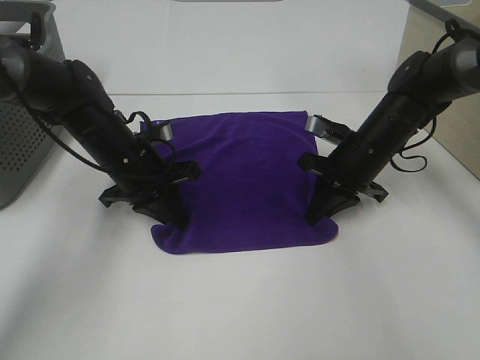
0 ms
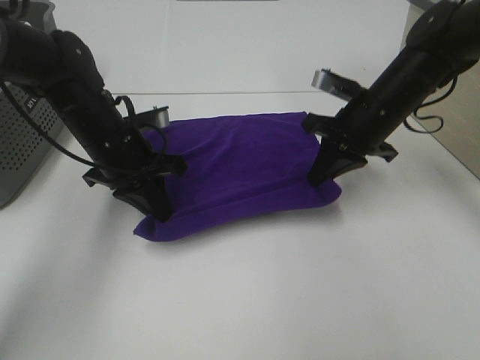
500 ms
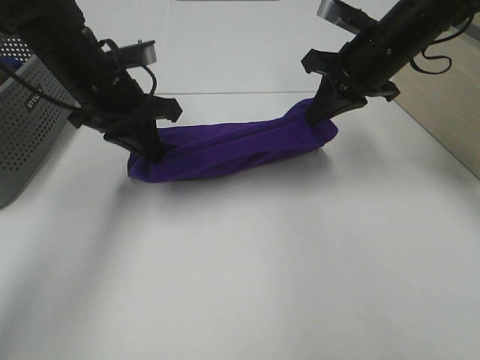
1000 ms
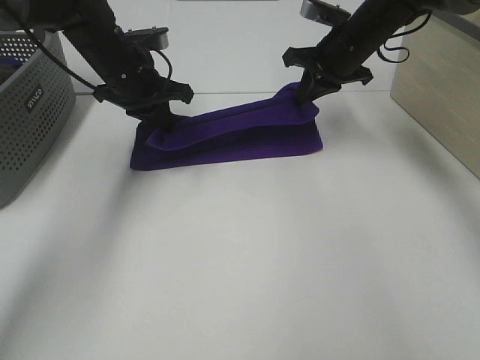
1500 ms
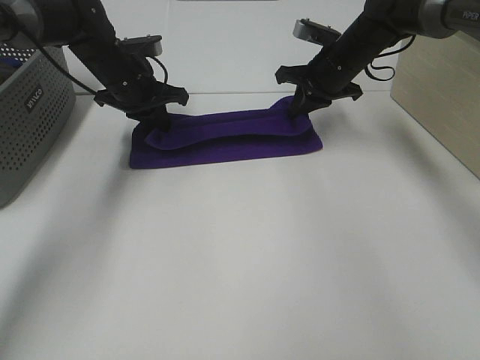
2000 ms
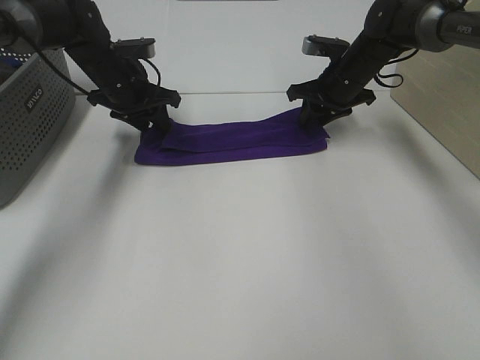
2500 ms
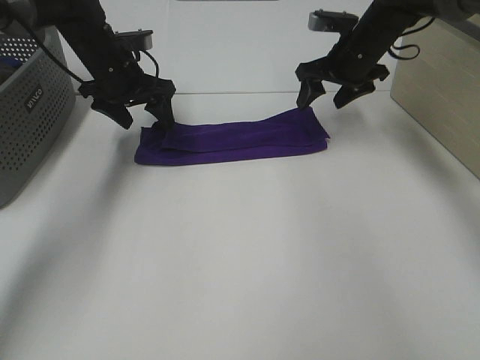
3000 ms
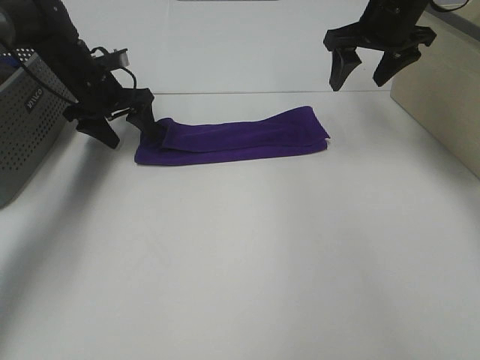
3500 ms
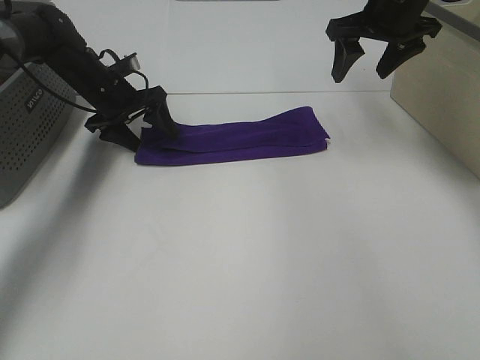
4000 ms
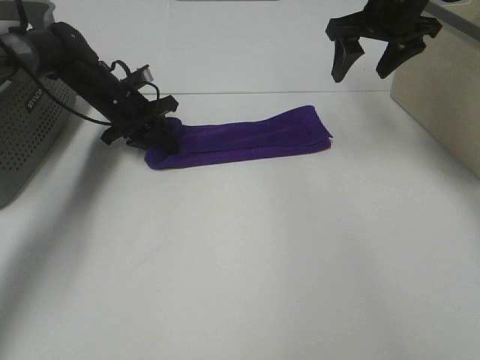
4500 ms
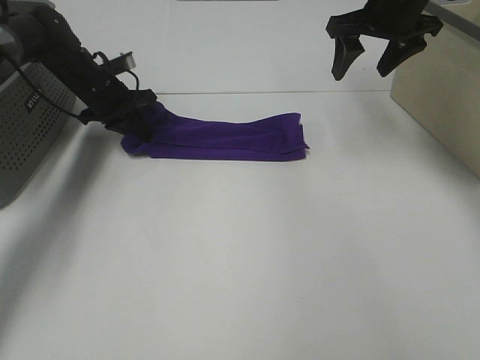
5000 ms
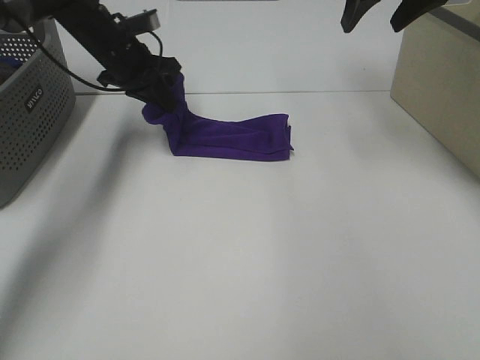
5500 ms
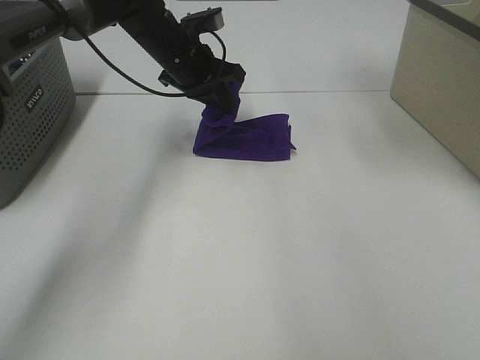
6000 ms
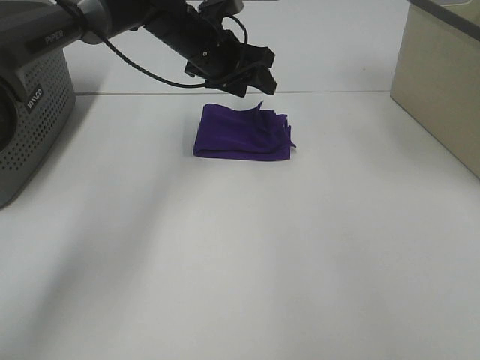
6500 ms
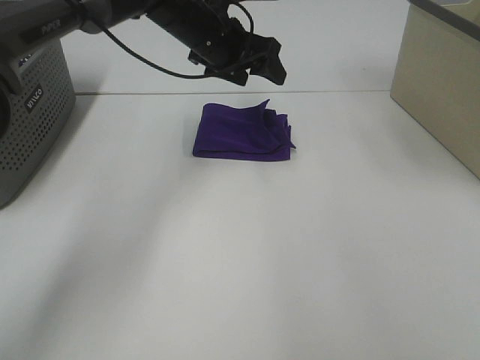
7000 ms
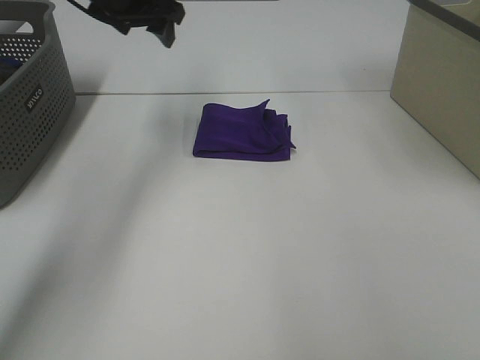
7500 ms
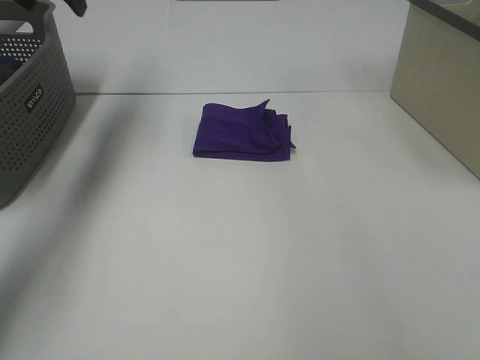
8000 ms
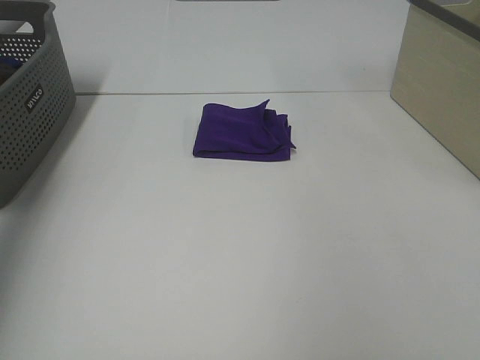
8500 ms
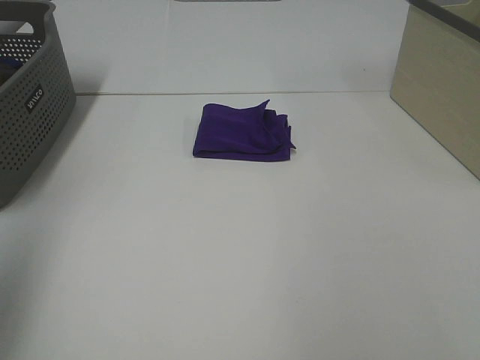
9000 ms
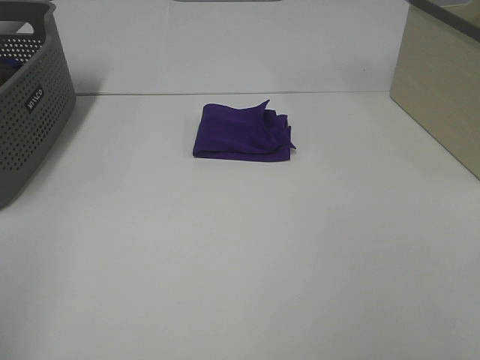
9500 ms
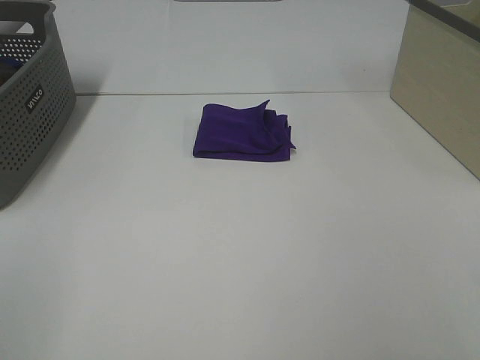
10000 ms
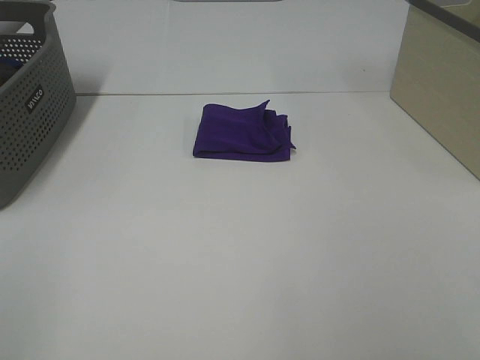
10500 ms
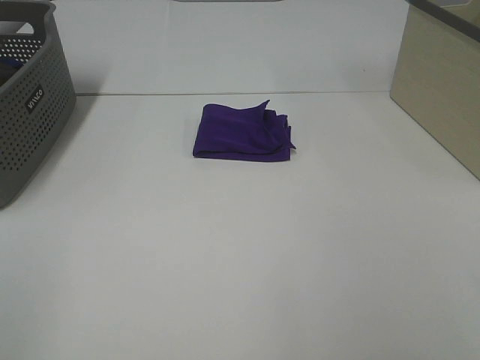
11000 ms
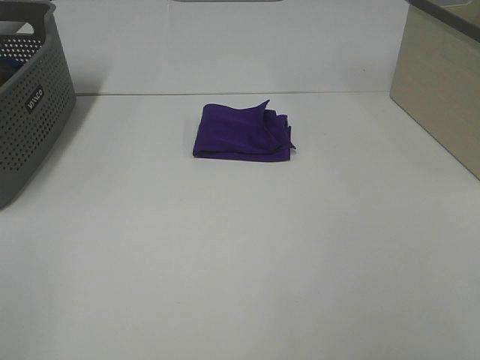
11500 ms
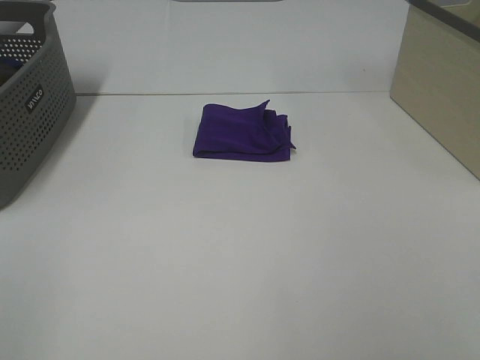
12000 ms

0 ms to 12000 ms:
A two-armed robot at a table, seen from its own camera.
Task of the whole recording: Fold towels.
Step, 0 ms to 2000 ms: Left hand: fold the purple towel up.
Step, 0 ms to 2000 ms: Right hand: fold the purple towel up.
Step, 2500 ms to 6000 ms: Left hand: fold the purple towel from left to right.
0 ms to 2000 ms: Both grippers travel together forward and upward, approximately 15 cm.
2000 ms to 4000 ms: The left gripper changes place by about 5 cm, and opens up. The right gripper goes approximately 10 cm upward, and opens.
4000 ms to 6000 ms: The left gripper is displaced to the right and upward by approximately 15 cm, and closes up, while the right gripper moves upward and backward, approximately 15 cm.
6000 ms to 8000 ms: The right gripper goes about 10 cm to the right and upward. Meanwhile the left gripper moves to the left and upward, approximately 25 cm, and opens.
8000 ms to 10000 ms: The left gripper travels backward by roughly 50 cm.
